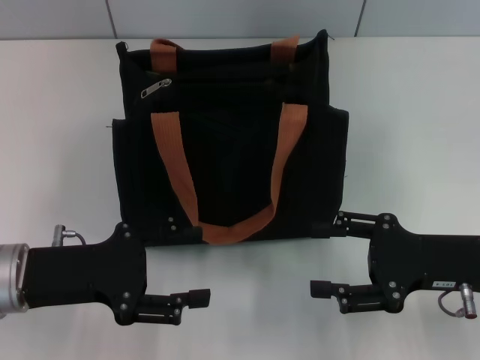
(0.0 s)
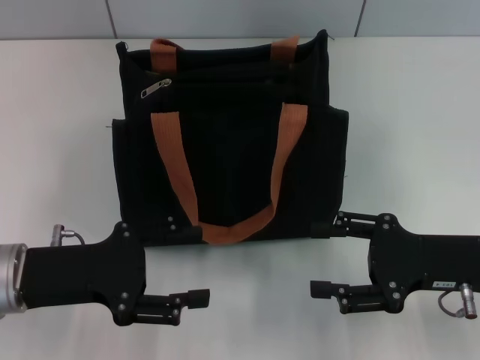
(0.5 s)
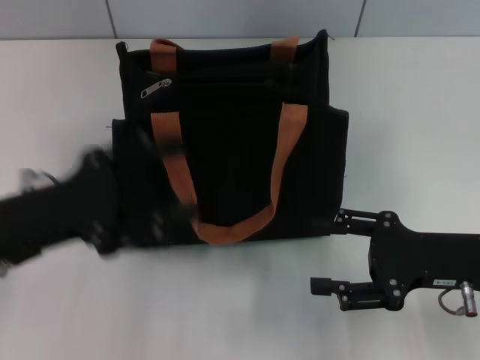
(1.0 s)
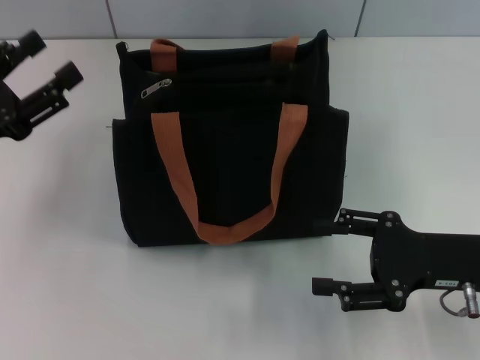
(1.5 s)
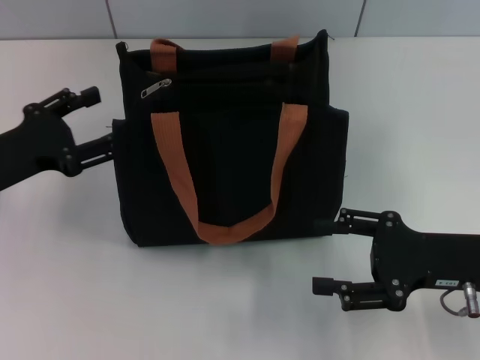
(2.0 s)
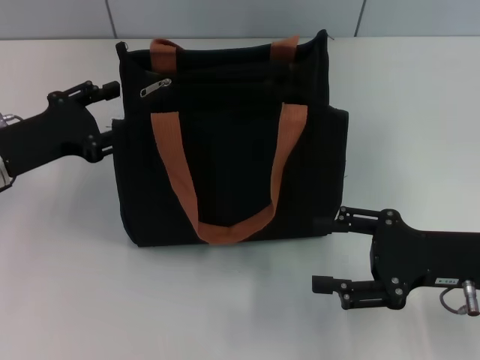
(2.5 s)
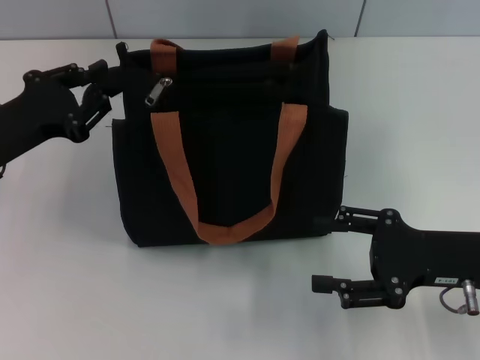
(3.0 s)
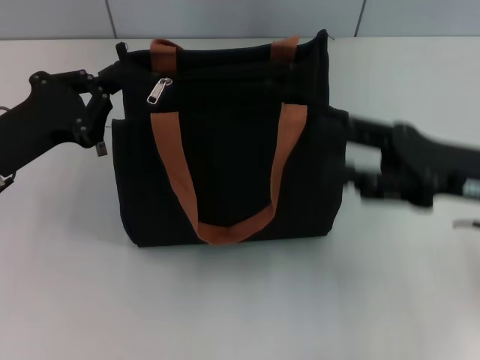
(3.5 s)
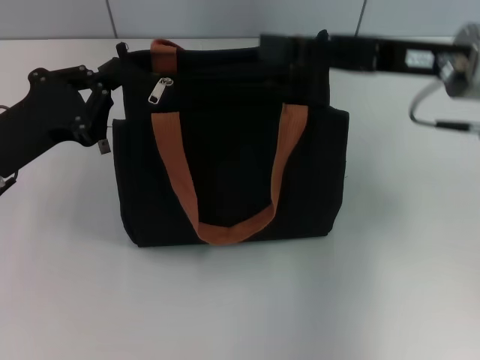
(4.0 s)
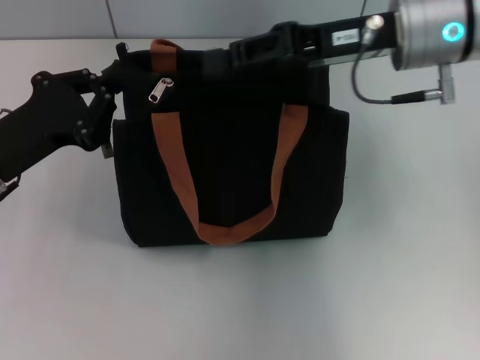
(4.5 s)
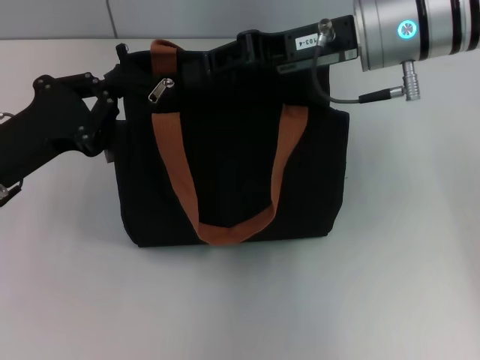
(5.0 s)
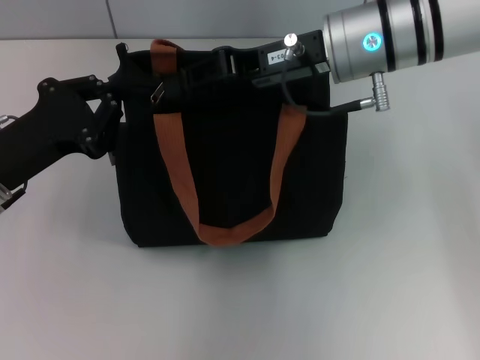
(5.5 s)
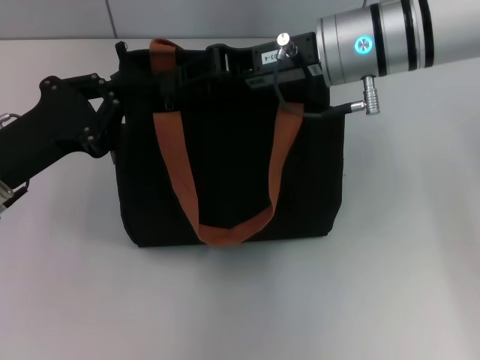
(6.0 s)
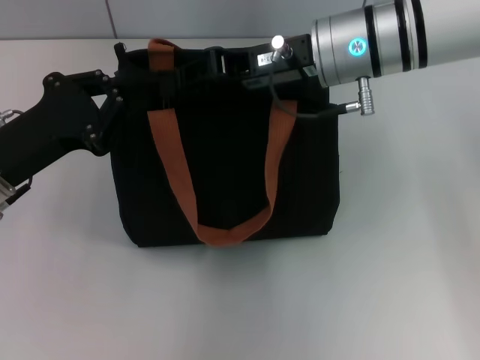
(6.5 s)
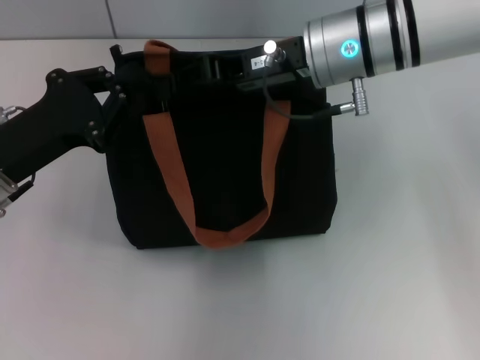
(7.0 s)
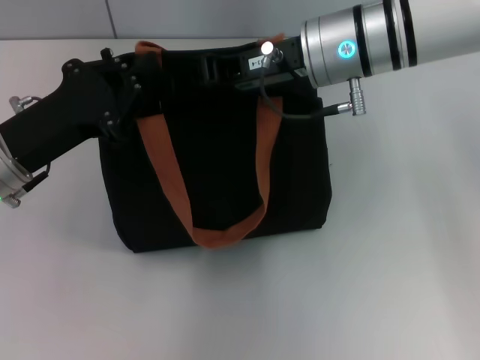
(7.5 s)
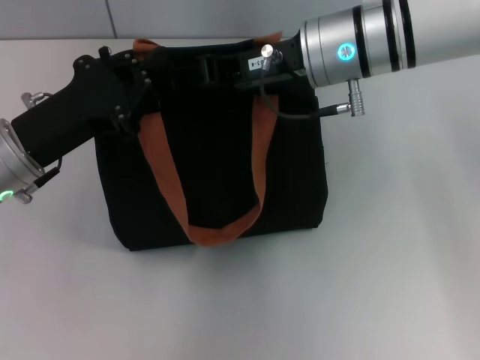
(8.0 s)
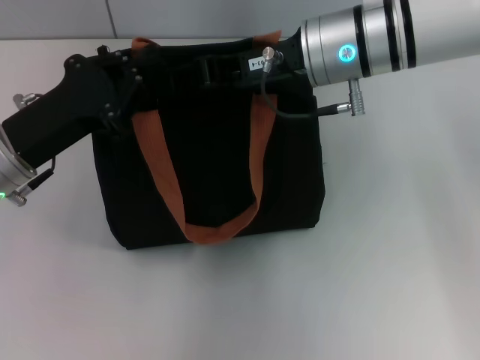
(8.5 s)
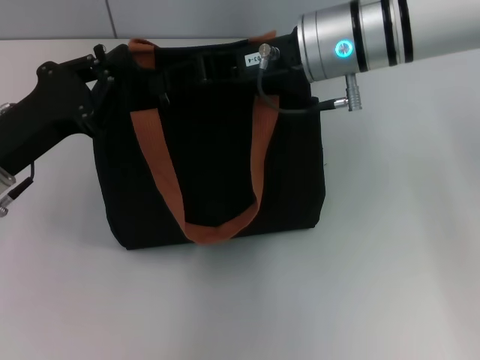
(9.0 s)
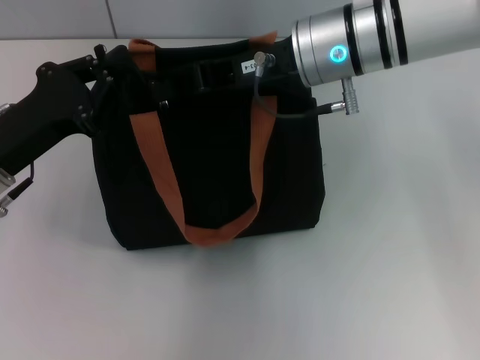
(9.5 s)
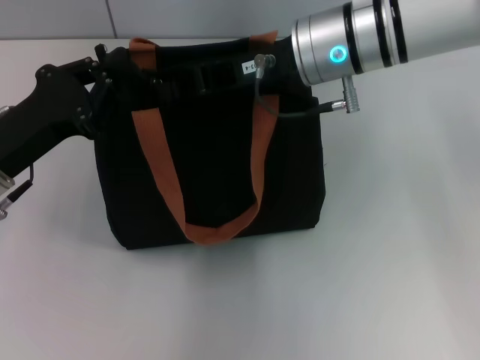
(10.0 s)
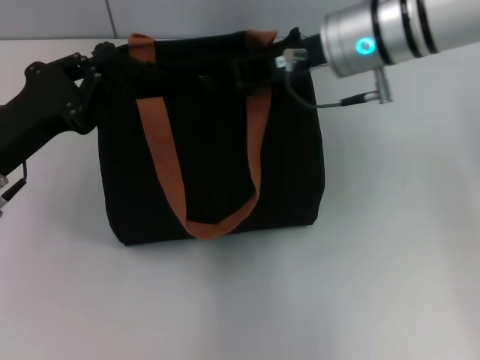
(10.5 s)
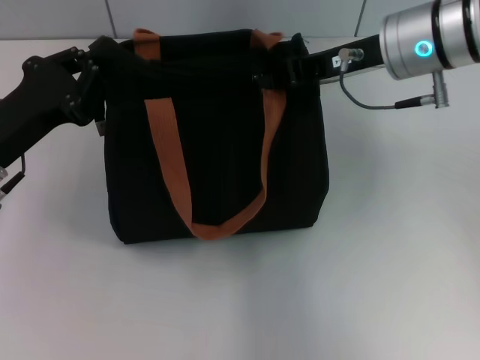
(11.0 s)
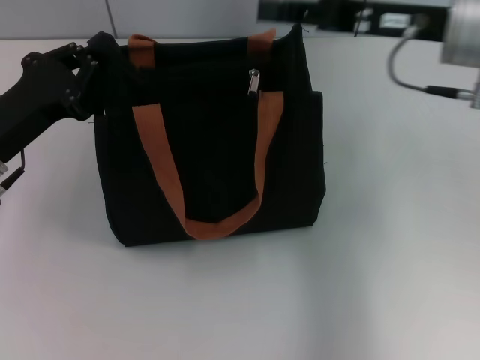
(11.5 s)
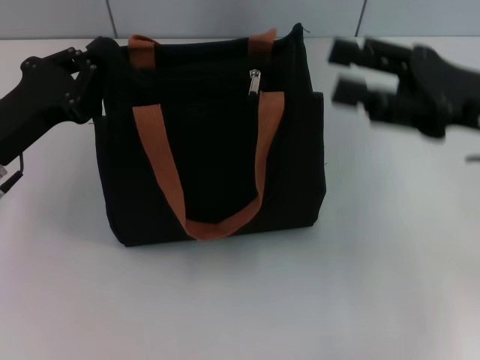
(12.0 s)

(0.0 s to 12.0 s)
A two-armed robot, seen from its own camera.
Step, 0.0 s - 11.0 s: Pull up the zipper with your right hand.
0.0 s - 2.0 s: The left gripper goes approximately 10 cm to the left and forward.
2.0 s - 4.0 s: The left gripper closes. The right gripper travels upward, forward and to the left by approximately 15 cm.
4.0 s - 6.0 s: The right gripper is displaced to the left by approximately 10 cm, and closes up.
6.0 s - 10.0 s: The grippers stay close to where they were, moving slightly.
10.0 s - 12.0 s: The right gripper travels to the right and backward by some 20 cm, and opens its fingers.

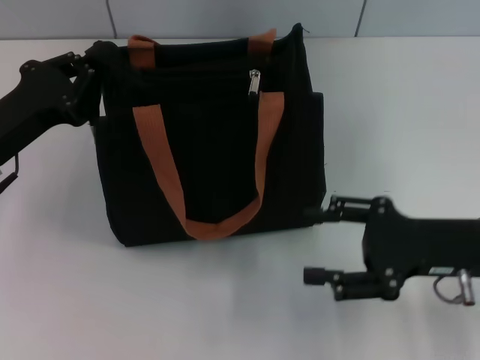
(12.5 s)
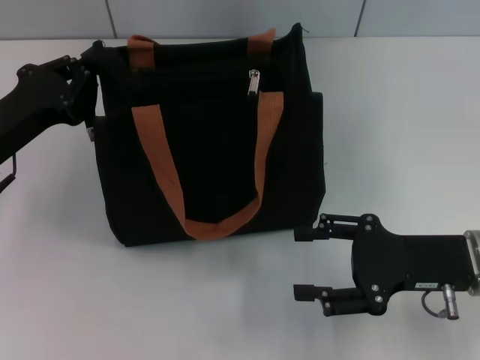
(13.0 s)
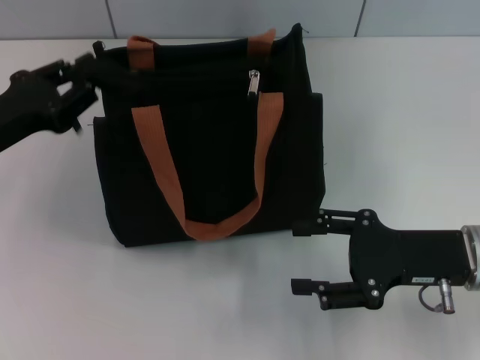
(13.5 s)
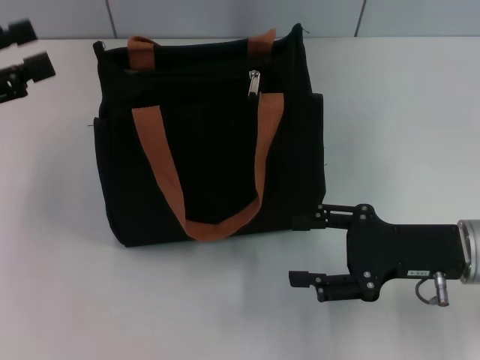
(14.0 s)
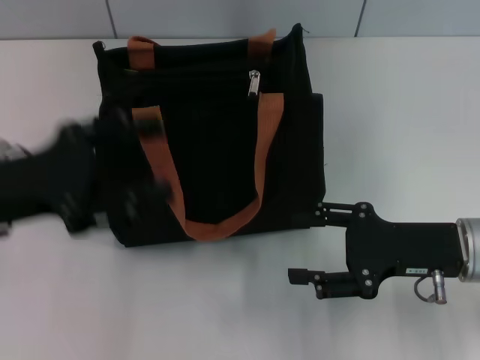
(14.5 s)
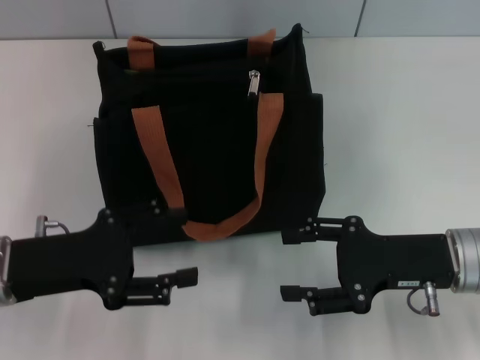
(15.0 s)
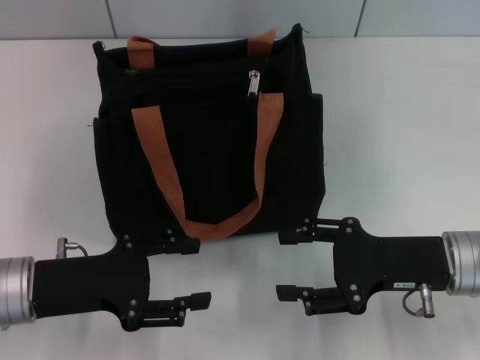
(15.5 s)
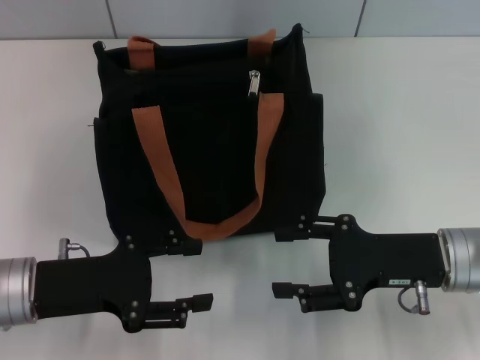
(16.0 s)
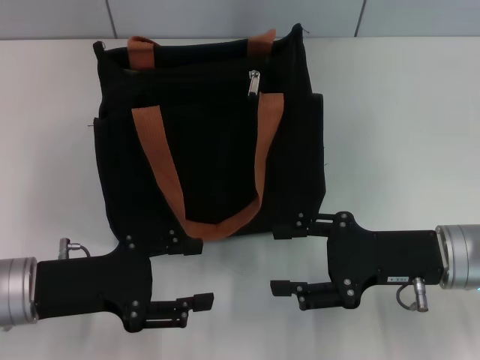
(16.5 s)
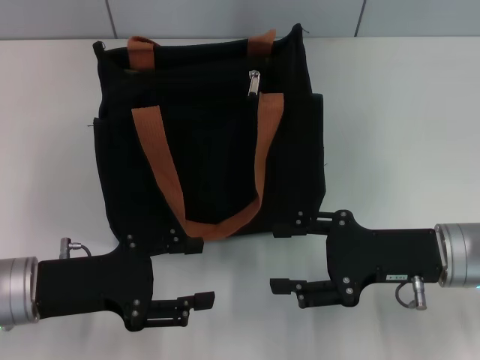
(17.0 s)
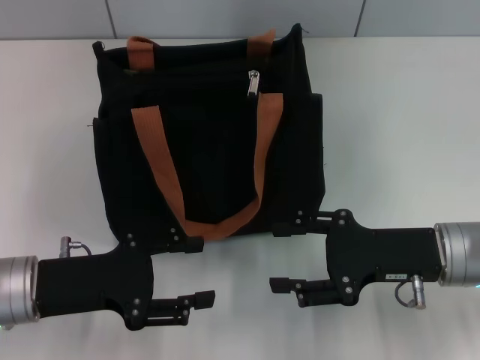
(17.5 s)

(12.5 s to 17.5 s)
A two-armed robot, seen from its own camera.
12.5 s - 15.0 s: The left gripper goes approximately 5 cm backward, reaches roughly 10 cm upward, then returns, and opens up.
15.0 s - 17.5 s: The grippers move only a little.

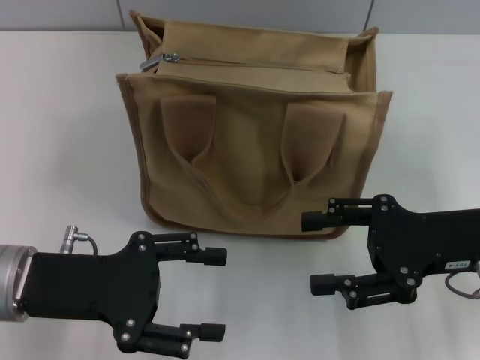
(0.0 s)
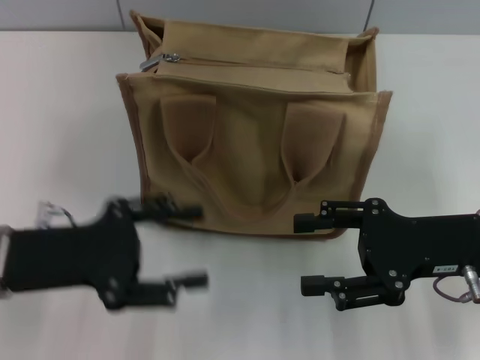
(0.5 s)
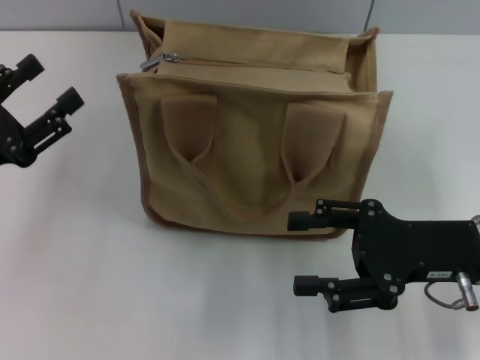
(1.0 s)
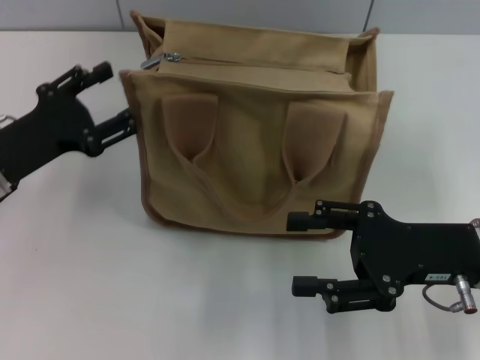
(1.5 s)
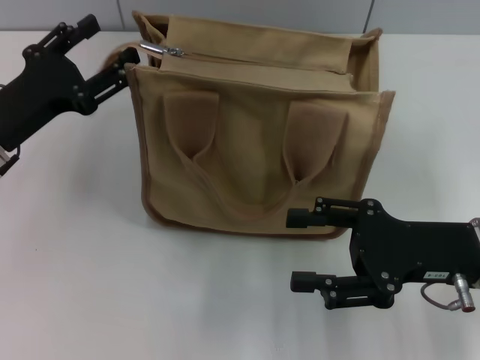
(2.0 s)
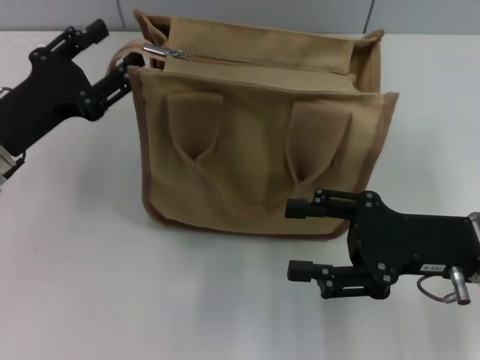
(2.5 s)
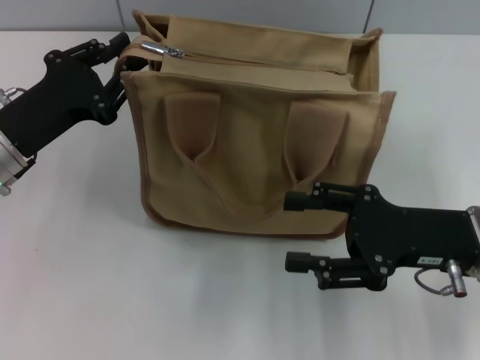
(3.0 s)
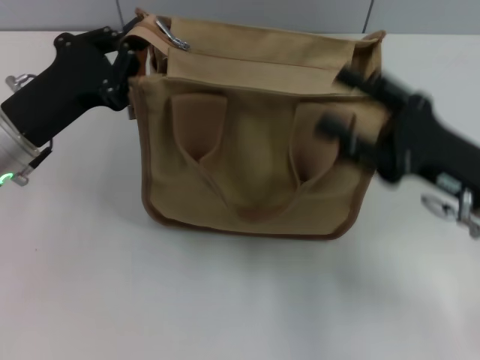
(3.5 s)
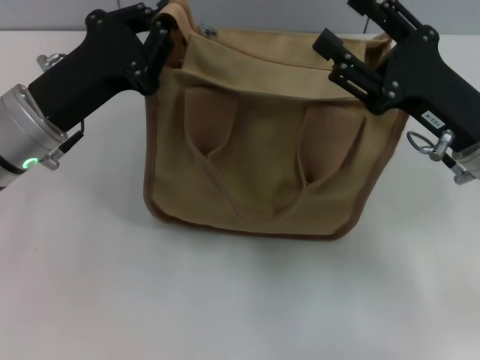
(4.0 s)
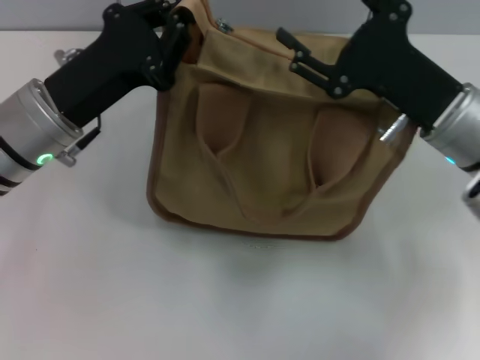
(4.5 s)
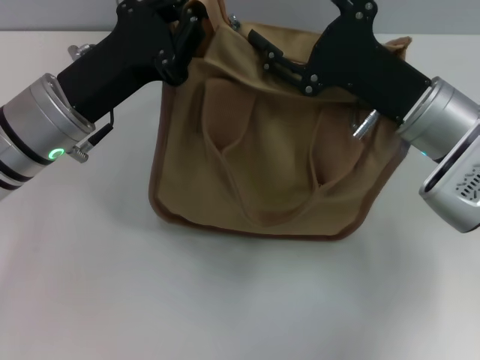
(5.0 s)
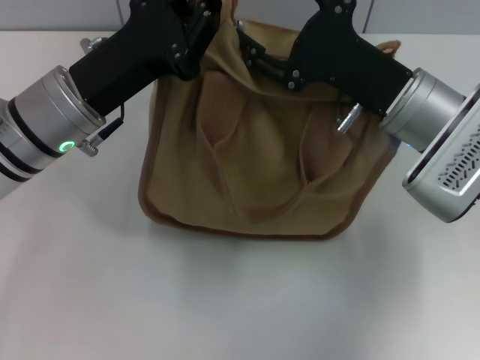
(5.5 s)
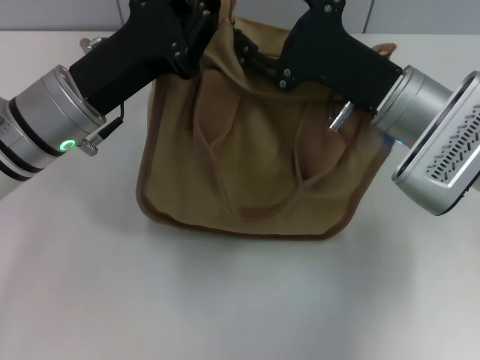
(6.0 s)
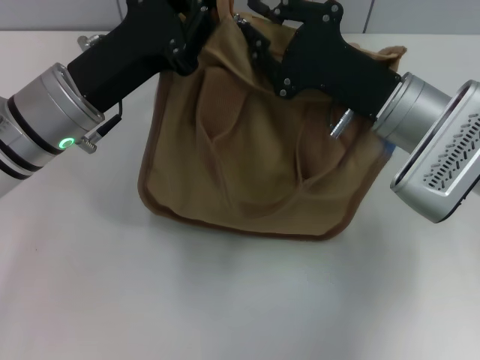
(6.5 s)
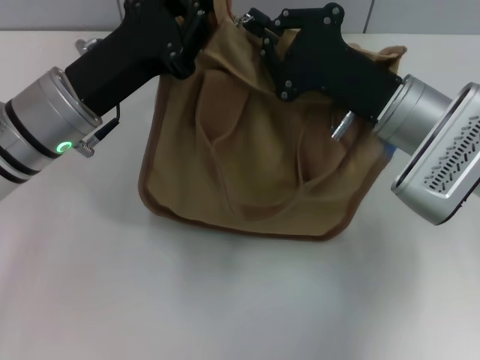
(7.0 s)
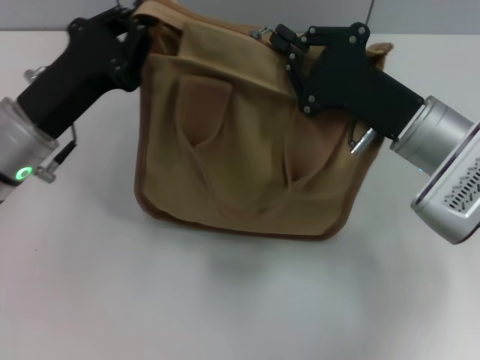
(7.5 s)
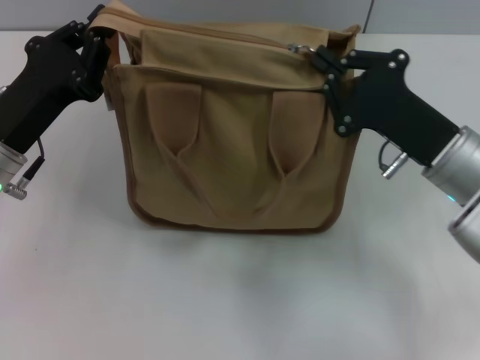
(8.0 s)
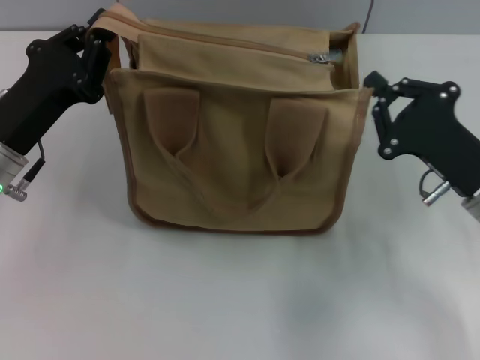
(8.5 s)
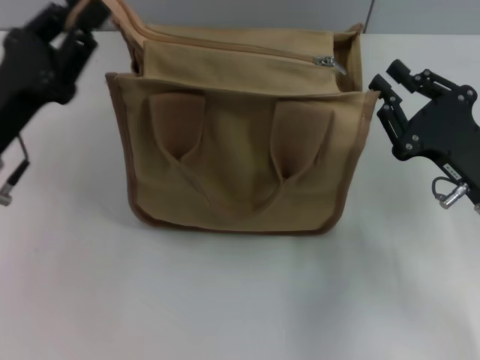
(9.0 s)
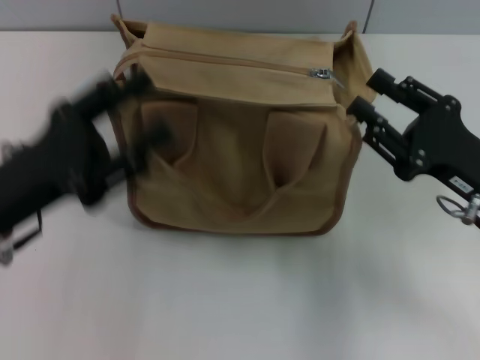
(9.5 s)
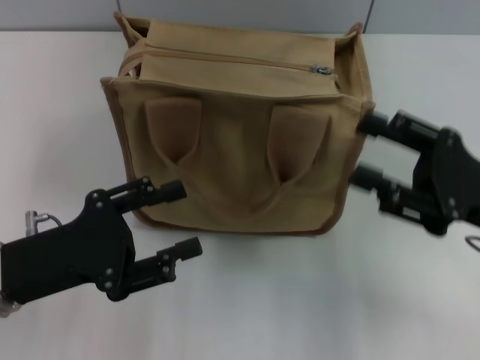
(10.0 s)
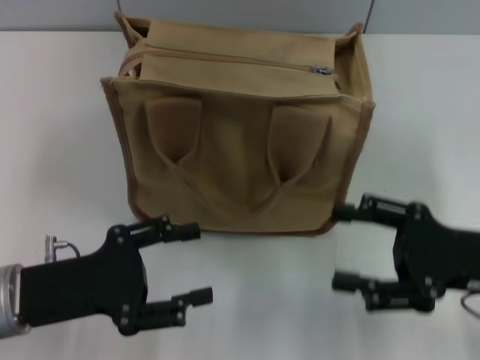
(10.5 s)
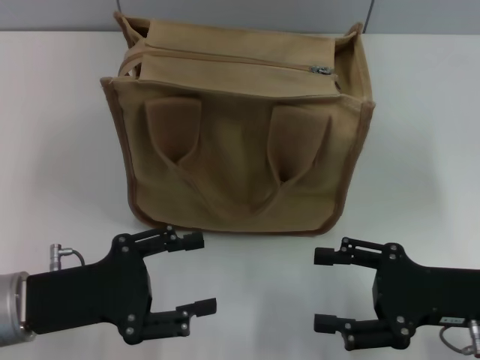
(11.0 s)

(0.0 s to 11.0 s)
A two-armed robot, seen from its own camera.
Step, 0.0 s - 8.5 s: Pull up the zipper with your right hand.
0.0 s - 2.0 s: The left gripper travels forward by about 10 cm.
2.0 s - 3.5 s: The left gripper closes up.
3.5 s - 5.5 s: The right gripper travels to the left and forward by roughly 10 cm. The left gripper goes approximately 5 cm to the right.
5.5 s - 7.5 s: The left gripper ends up roughly 5 cm from where it was. The right gripper closes its fingers.
7.5 s - 9.0 s: The right gripper heads to the right and backward, covering roughly 10 cm.
9.0 s - 11.0 s: The left gripper shifts about 10 cm backward and downward, and opens its fingers. The right gripper opens up.
